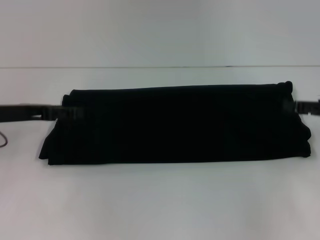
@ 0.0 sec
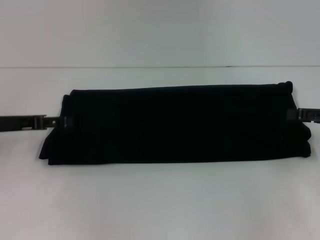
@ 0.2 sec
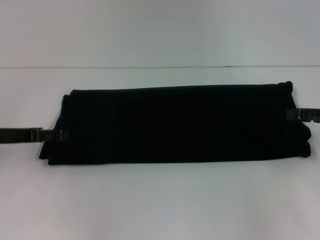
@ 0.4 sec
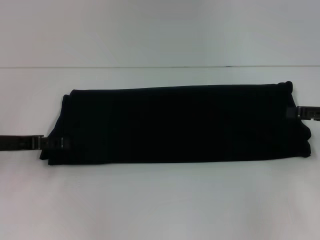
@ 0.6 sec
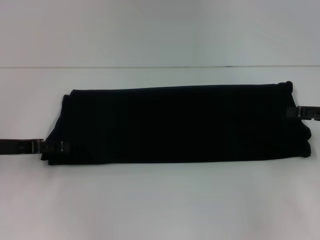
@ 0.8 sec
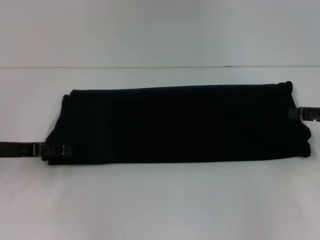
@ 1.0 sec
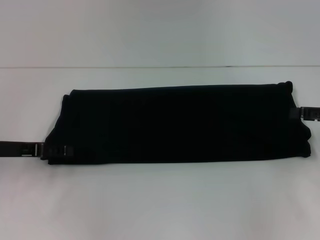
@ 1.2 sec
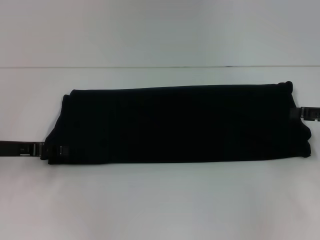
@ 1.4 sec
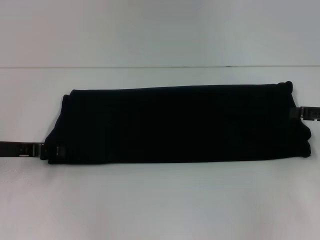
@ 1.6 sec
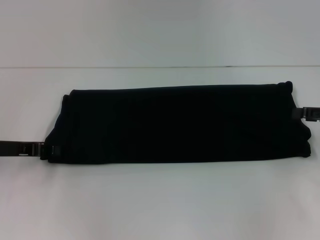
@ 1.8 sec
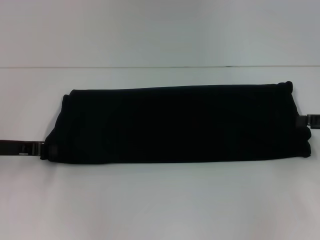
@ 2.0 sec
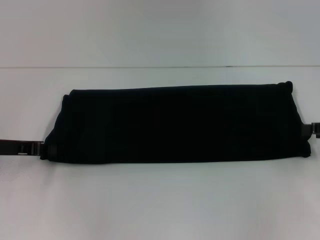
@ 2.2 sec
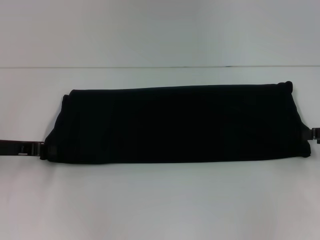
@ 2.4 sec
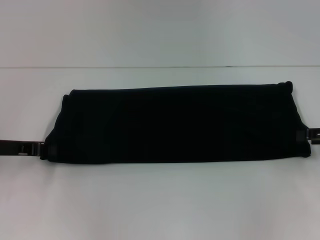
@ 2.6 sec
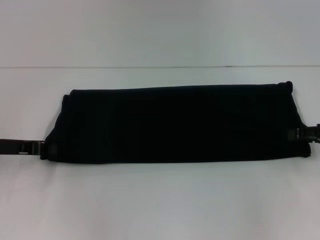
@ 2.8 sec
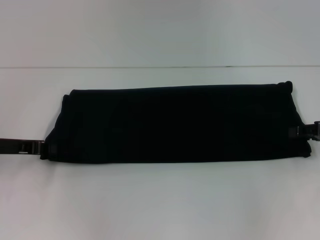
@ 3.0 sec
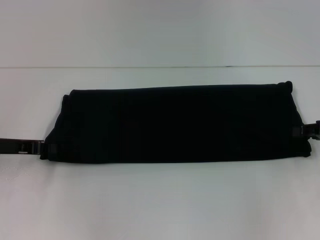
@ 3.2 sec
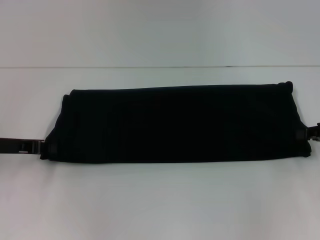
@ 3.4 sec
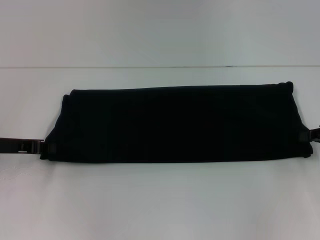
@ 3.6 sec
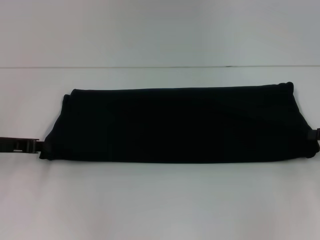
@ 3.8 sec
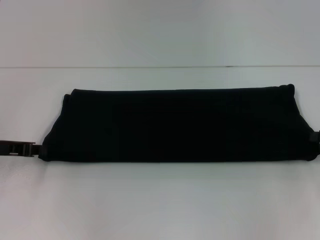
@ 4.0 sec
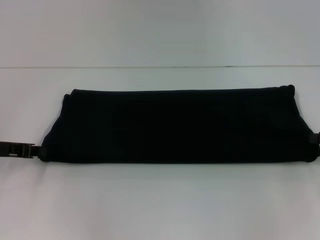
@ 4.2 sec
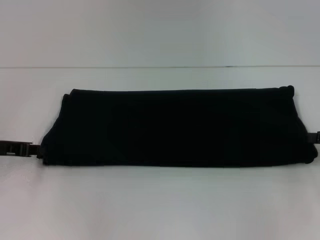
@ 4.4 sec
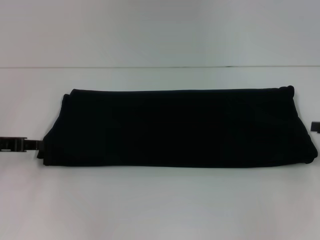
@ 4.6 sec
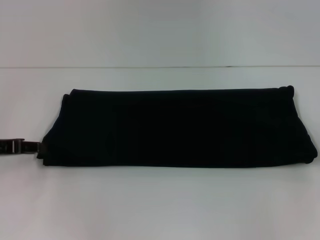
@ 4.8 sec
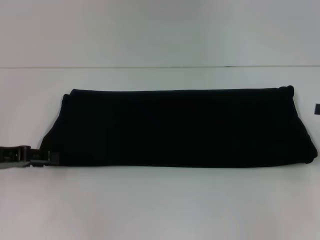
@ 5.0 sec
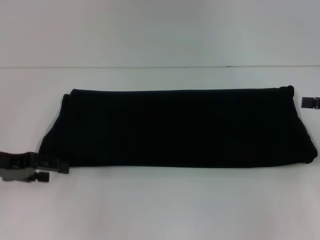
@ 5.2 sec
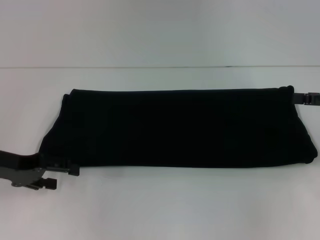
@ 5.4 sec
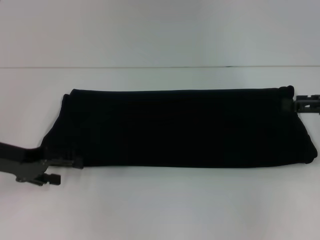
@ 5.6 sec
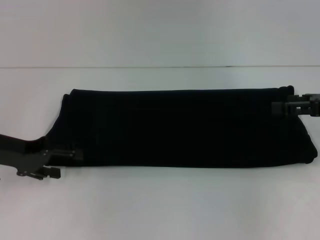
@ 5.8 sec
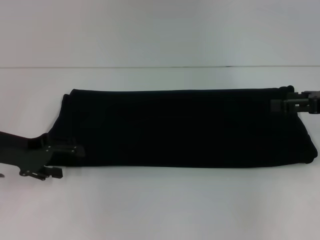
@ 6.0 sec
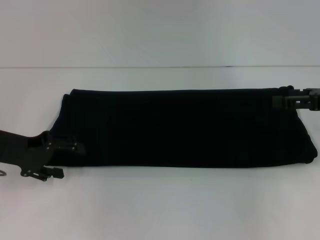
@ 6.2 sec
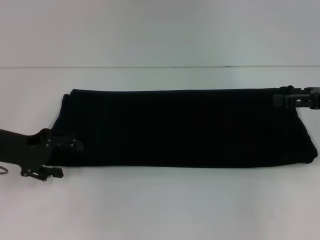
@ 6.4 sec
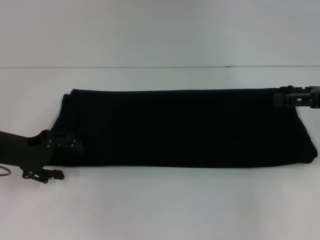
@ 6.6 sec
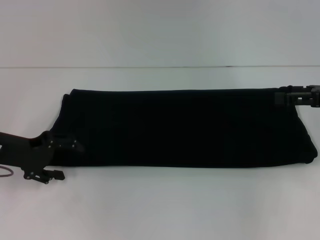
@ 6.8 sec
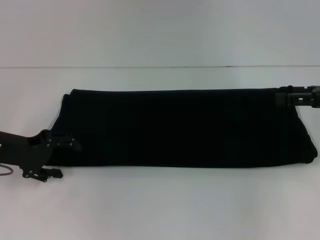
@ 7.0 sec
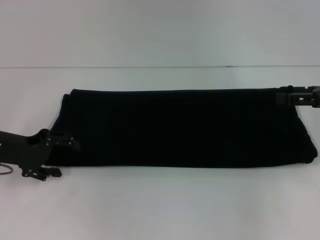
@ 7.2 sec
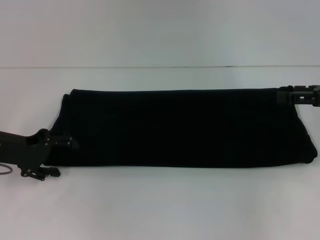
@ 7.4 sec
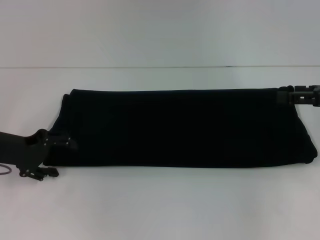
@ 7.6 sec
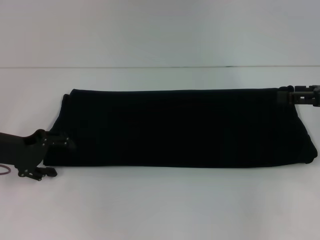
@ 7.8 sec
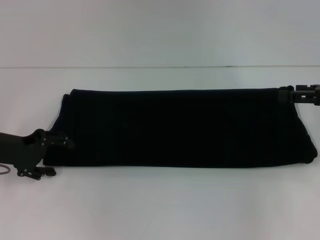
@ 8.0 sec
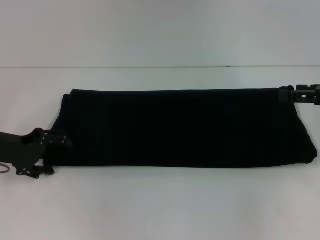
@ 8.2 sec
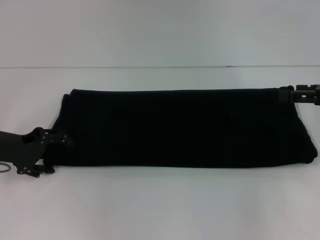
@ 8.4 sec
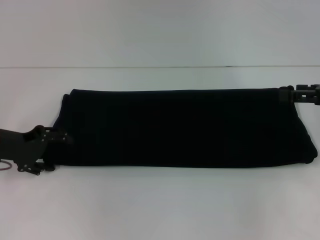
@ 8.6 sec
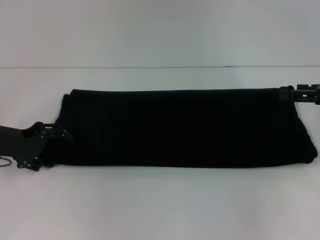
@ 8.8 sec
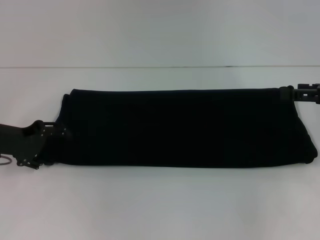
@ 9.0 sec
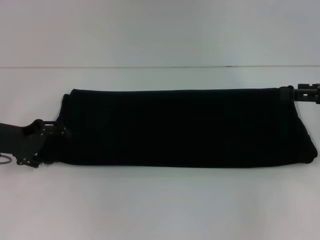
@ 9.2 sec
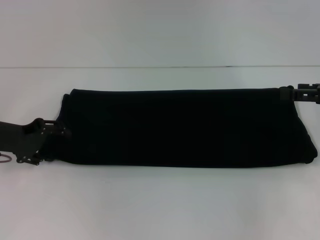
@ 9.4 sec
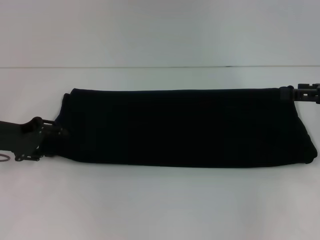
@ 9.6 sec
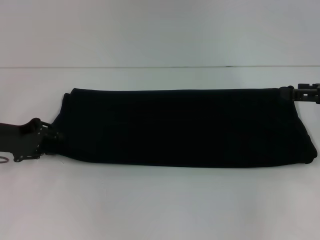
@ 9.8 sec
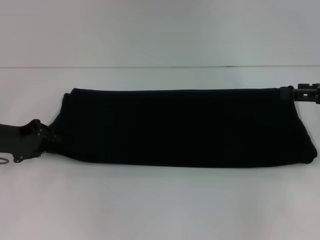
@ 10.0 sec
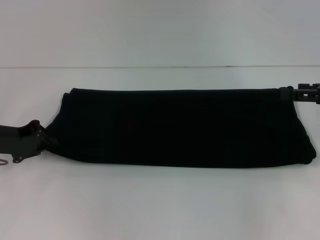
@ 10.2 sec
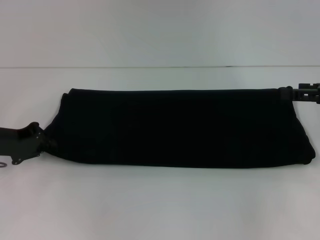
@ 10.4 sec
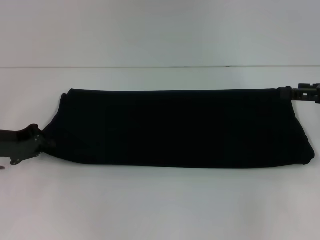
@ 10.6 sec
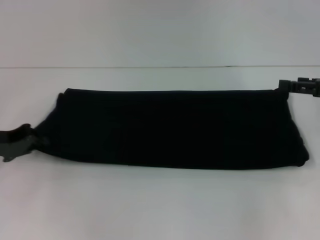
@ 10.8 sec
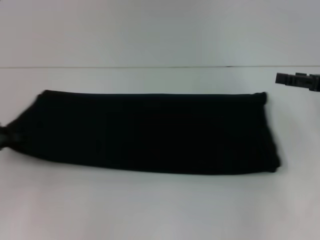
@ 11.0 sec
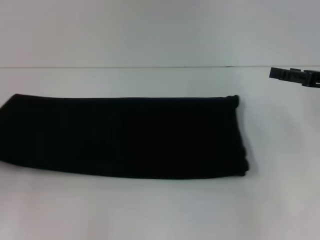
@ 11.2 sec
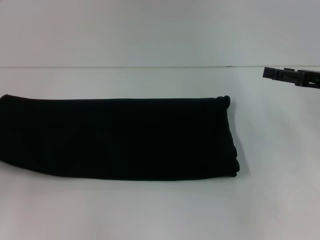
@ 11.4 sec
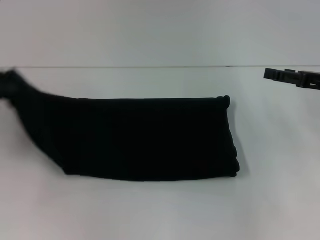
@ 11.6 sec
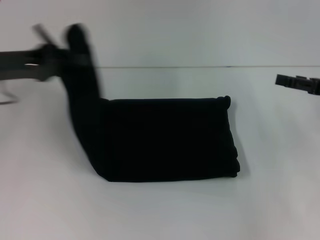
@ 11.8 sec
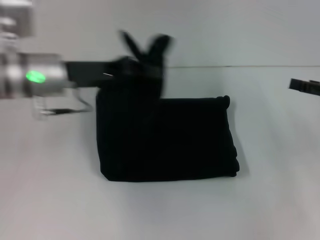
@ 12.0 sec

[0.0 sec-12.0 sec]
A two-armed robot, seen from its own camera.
0.0 sec to 1.6 sec: There are only small adjustments of the grippers.
1.6 sec to 3.0 sec: The left gripper closes its fingers.
3.0 sec to 4.4 sec: The right gripper closes up.
4.4 sec to 6.0 sec: The right gripper goes roughly 5 cm upward, and opens its fingers; the left gripper opens its fingers.
6.0 sec to 9.0 sec: The grippers move only a little.
9.0 sec to 10.4 sec: The left gripper closes.
10.4 sec to 12.0 sec: The left gripper shifts about 15 cm to the right and upward.

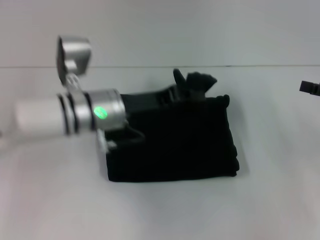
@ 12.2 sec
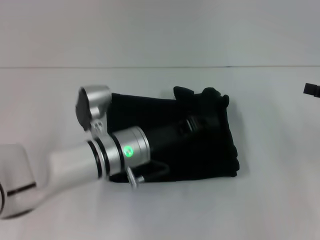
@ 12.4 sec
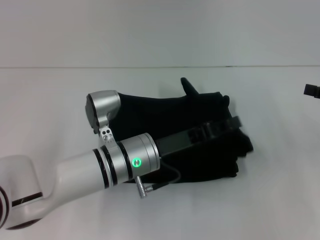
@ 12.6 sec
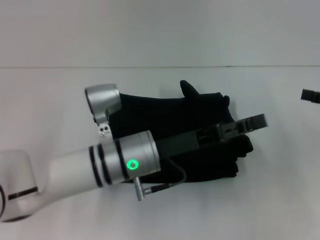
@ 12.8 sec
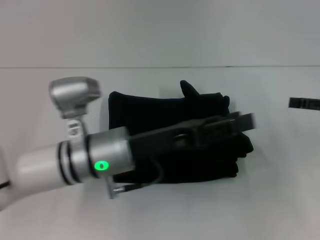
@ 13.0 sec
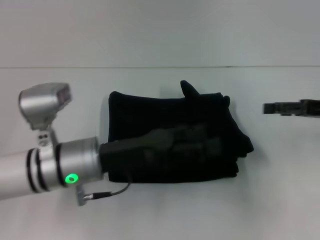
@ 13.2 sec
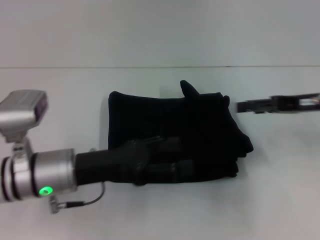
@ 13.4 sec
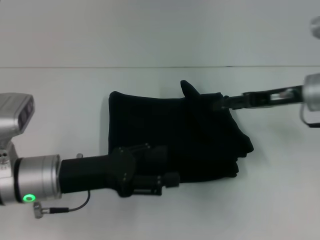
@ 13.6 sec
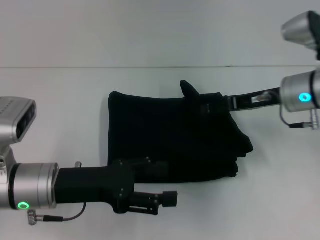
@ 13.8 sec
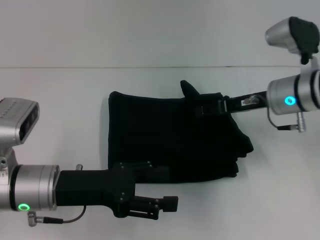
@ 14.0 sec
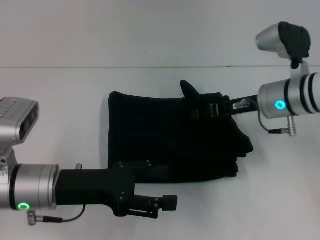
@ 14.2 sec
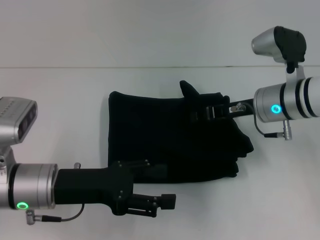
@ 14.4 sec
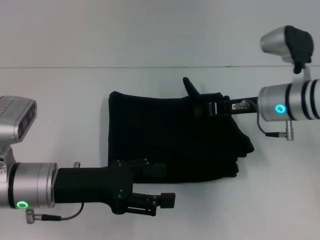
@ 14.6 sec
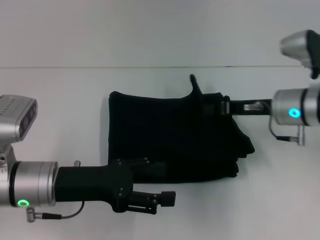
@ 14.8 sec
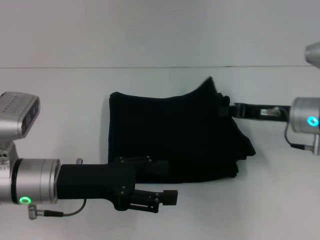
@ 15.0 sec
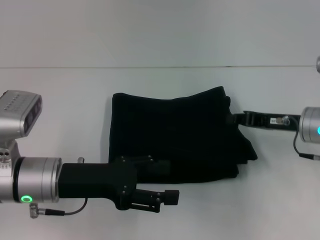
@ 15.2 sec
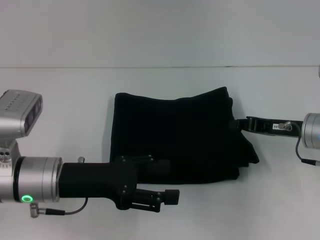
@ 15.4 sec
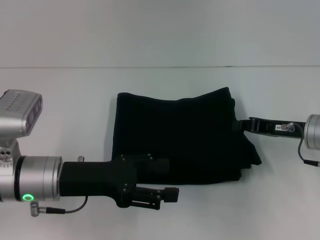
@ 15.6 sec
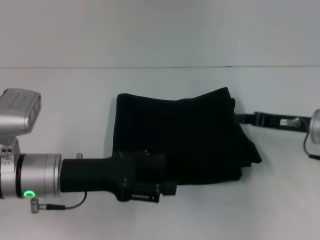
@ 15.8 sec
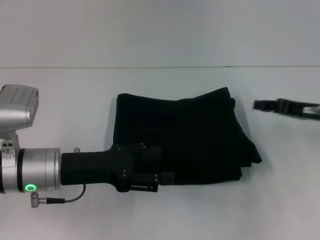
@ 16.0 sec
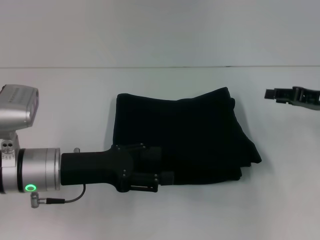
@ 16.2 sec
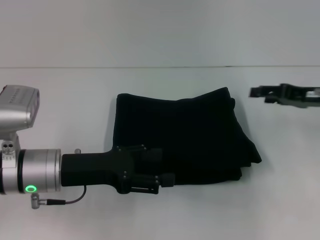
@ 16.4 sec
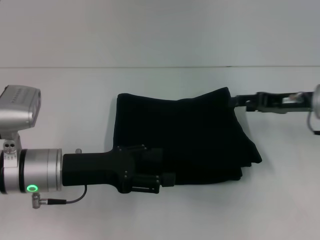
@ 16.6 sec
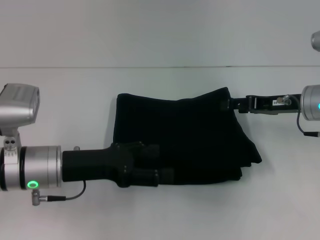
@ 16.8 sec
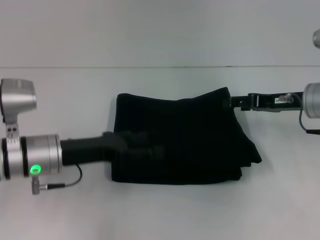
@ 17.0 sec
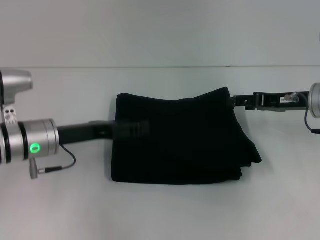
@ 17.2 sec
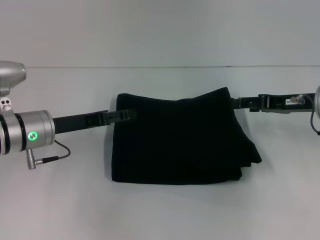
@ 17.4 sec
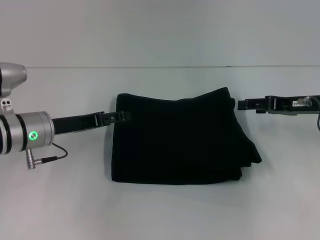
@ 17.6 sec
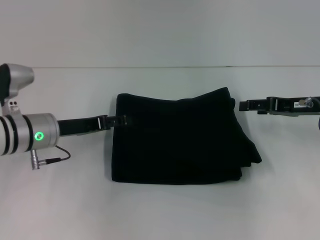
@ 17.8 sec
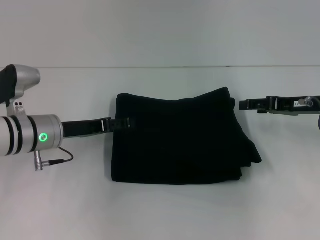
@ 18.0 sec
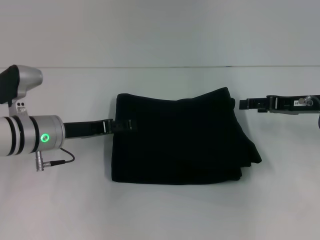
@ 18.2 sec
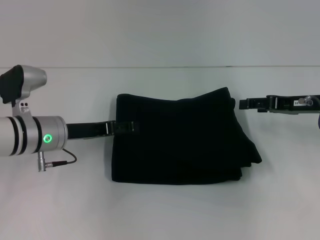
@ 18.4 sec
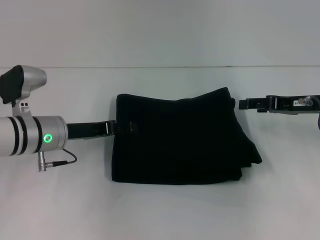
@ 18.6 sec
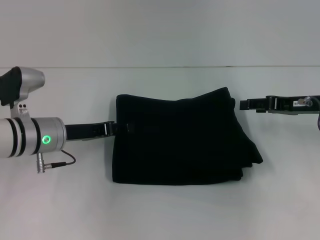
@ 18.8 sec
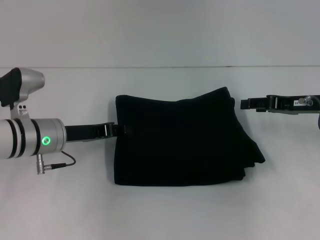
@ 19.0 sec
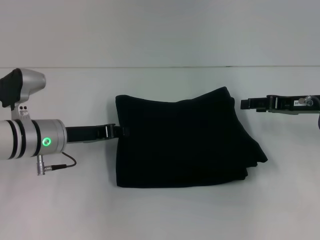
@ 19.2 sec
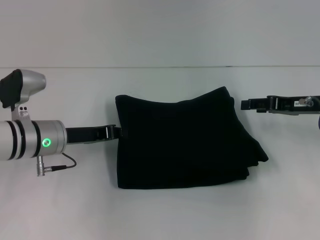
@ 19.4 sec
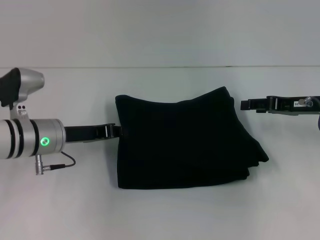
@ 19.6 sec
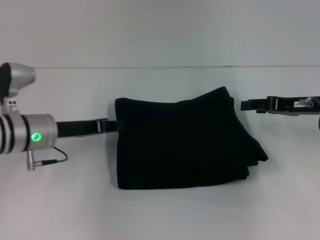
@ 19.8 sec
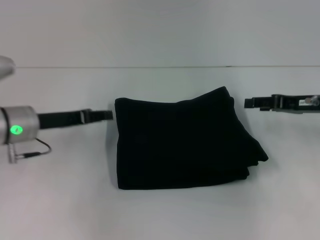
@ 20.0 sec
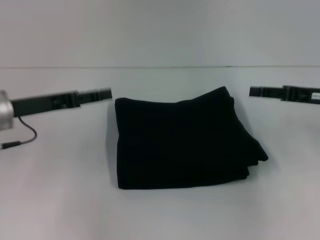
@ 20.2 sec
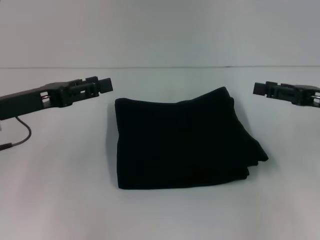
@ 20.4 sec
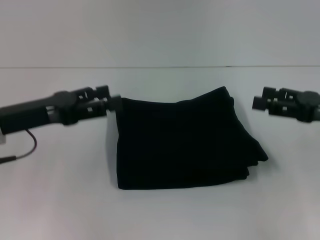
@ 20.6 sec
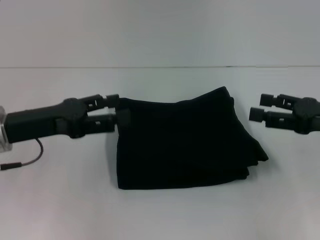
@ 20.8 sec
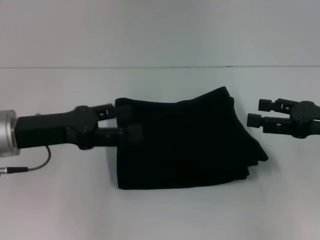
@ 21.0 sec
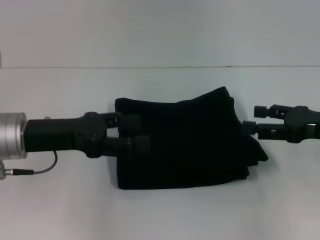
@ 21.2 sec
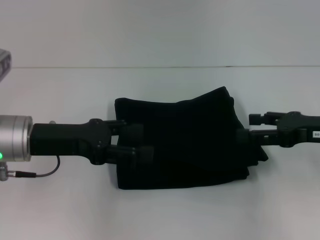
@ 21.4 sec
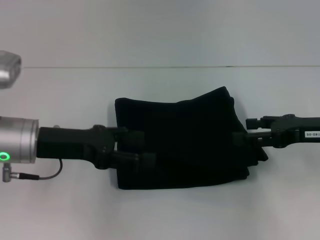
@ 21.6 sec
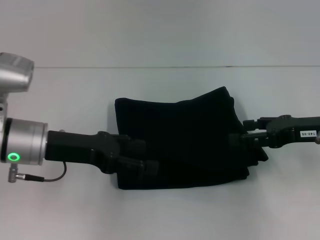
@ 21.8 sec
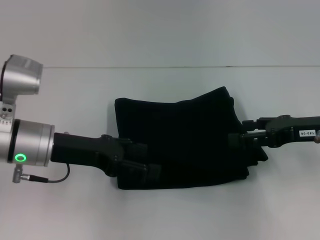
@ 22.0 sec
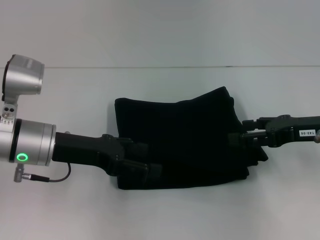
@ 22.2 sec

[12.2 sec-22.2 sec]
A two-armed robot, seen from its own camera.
12.2 sec to 13.6 sec: The right gripper goes roughly 15 cm to the left and forward, while the left gripper travels backward and to the left by approximately 10 cm, and opens its fingers.
13.6 sec to 15.0 sec: The right gripper closes.
15.0 sec to 16.4 sec: The right gripper moves to the right, some 5 cm, and opens.
16.4 sec to 18.0 sec: The left gripper is displaced forward by roughly 5 cm.
18.0 sec to 19.4 sec: The left gripper closes up.
19.4 sec to 20.8 sec: The left gripper moves upward and backward, roughly 10 cm, and opens, while the right gripper travels backward by roughly 10 cm.
20.8 sec to 22.2 sec: The left gripper ends up about 5 cm from where it was.
